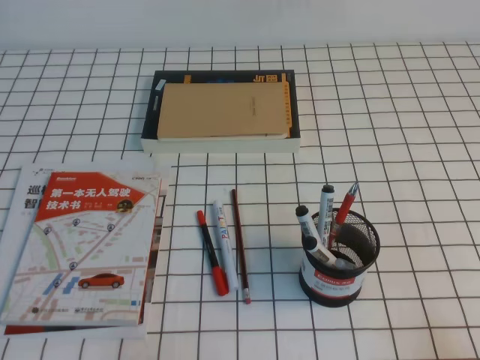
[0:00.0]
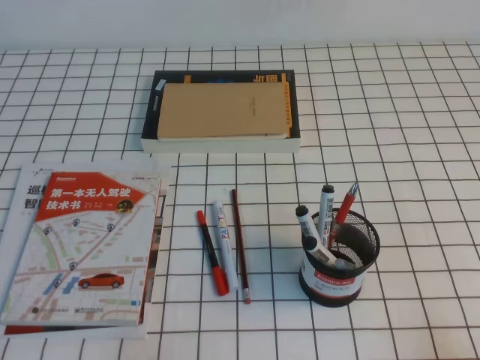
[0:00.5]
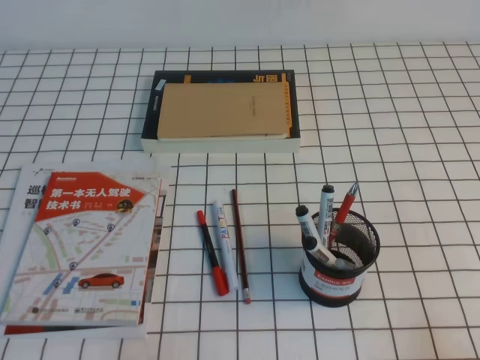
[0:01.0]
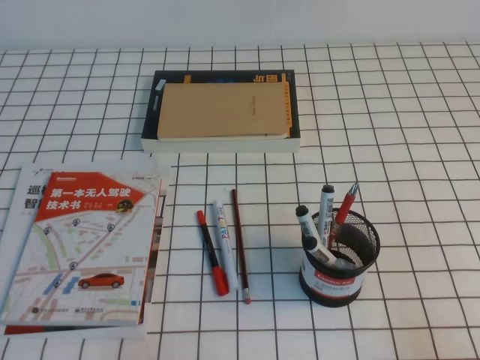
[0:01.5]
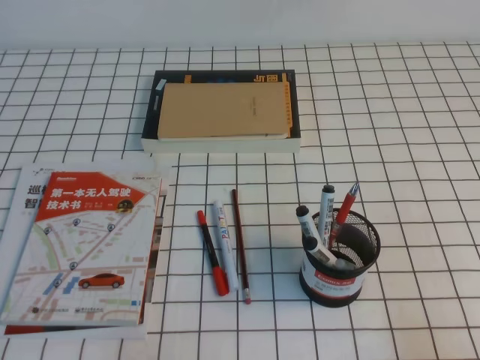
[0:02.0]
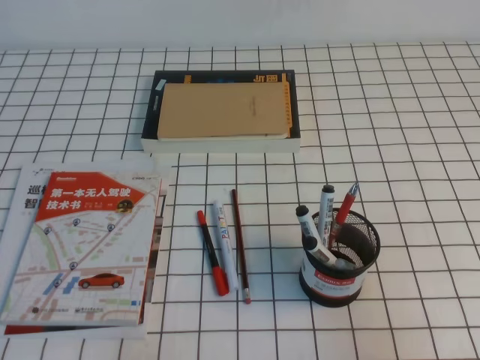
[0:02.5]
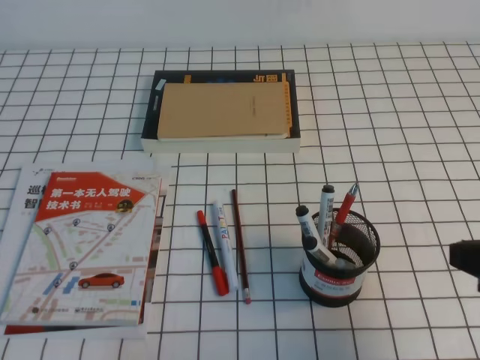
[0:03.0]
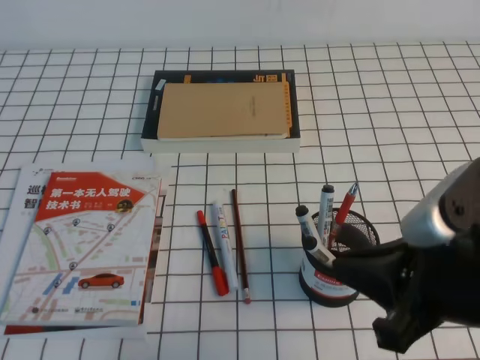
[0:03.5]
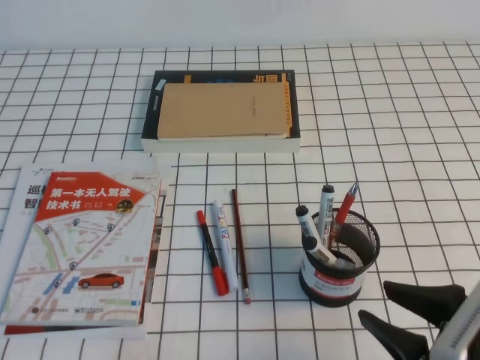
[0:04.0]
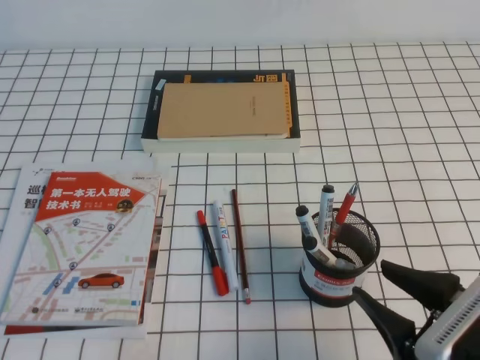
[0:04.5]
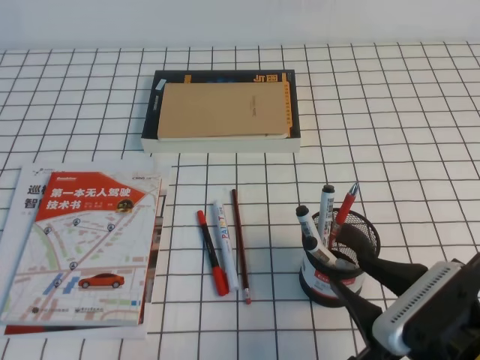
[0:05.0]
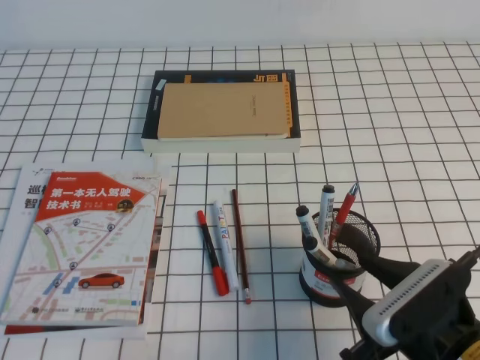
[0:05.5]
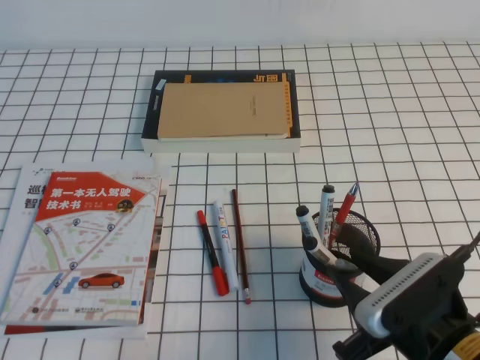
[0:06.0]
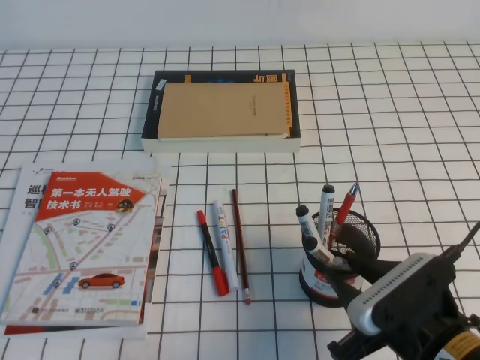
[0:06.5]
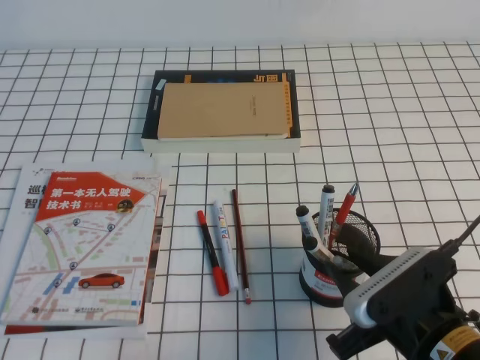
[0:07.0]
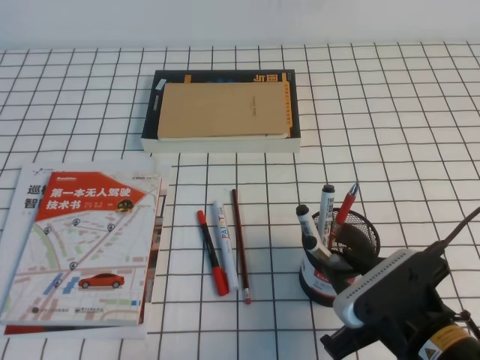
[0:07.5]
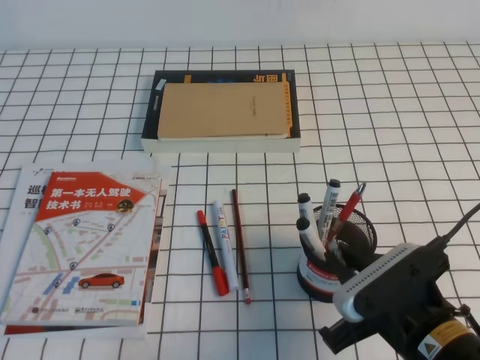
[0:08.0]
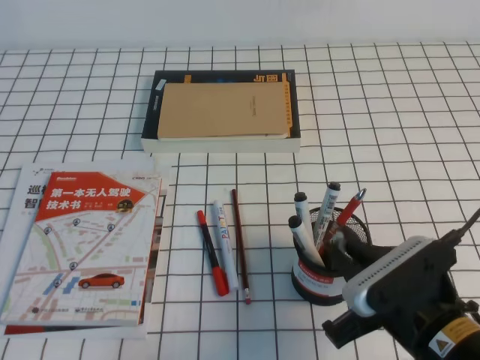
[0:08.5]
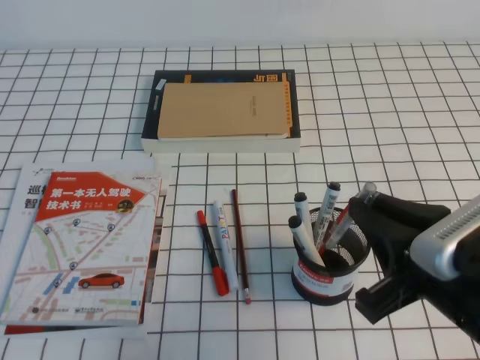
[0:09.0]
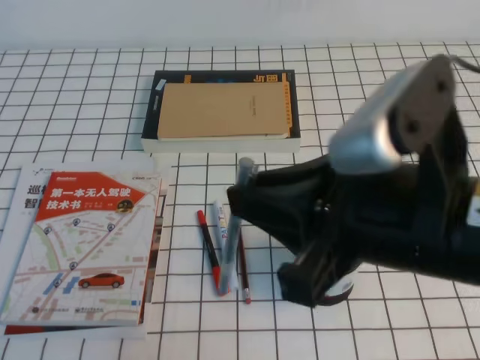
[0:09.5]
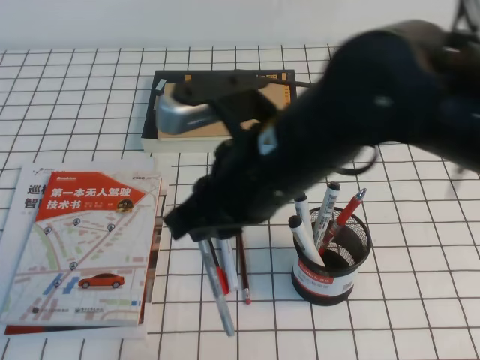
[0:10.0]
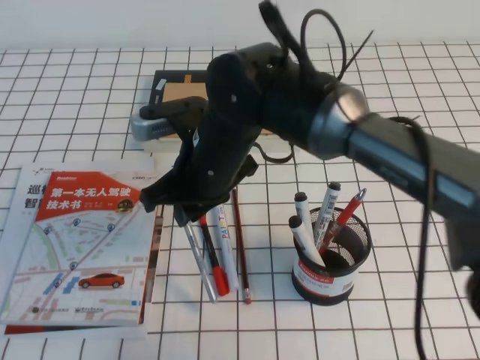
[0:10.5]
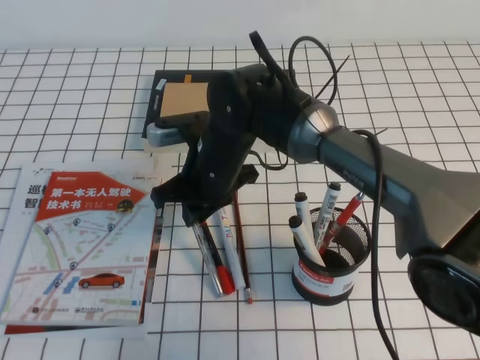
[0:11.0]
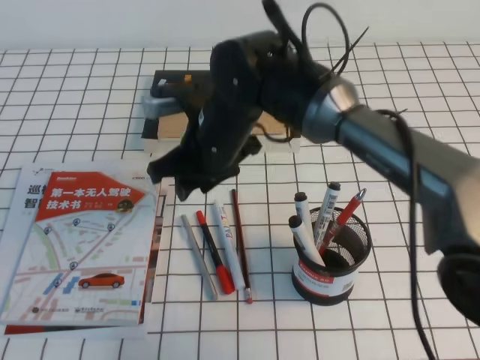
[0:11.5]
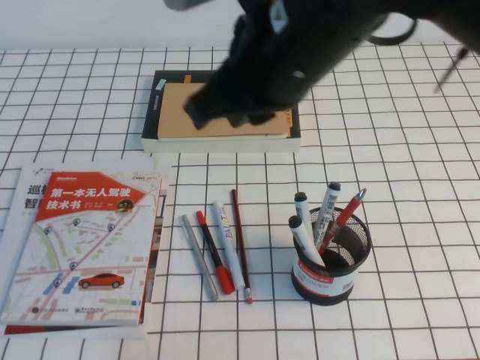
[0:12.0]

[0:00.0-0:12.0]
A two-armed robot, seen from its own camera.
0:02.0 to 0:04.0: The right gripper is displaced to the left and forward by some 10 cm, and opens its fingers.
0:04.0 to 0:06.0: The right gripper ends up roughly 5 cm from where it was.
0:06.0 to 0:08.0: The right gripper closes up.
0:08.0 to 0:10.0: The right gripper shifts approximately 20 cm upward and to the left.
0:10.0 to 0:12.0: The right gripper moves about 15 cm downward and comes back, and opens, then closes once more.

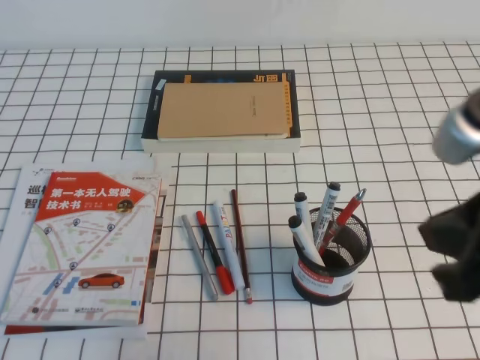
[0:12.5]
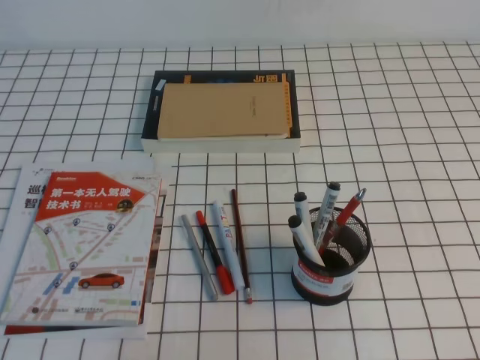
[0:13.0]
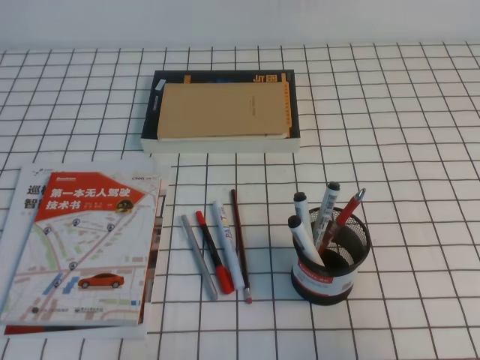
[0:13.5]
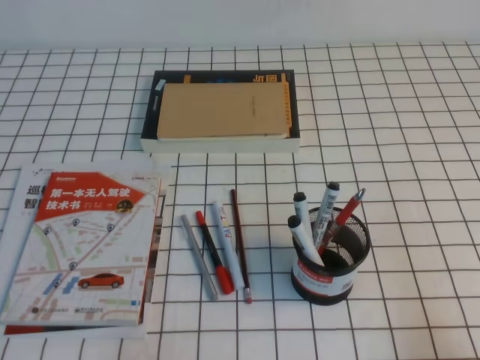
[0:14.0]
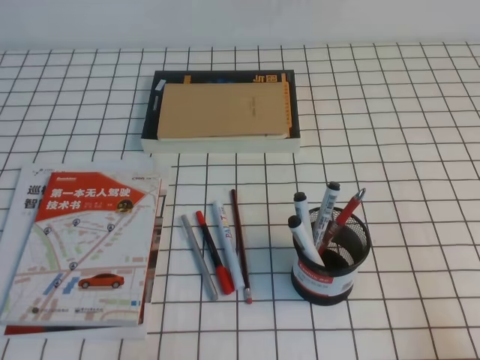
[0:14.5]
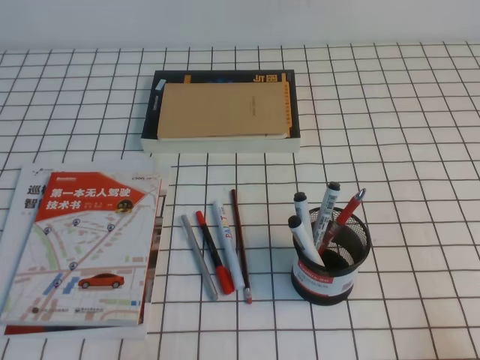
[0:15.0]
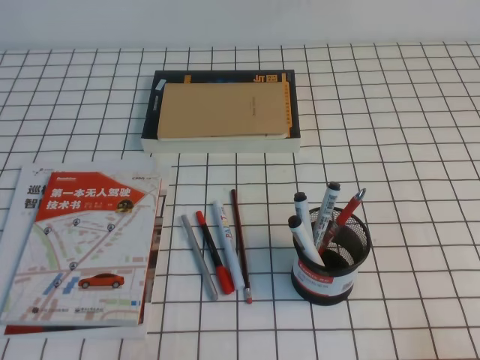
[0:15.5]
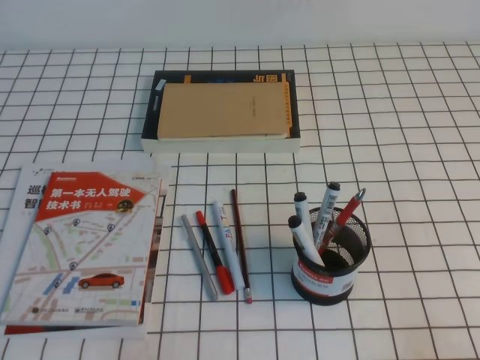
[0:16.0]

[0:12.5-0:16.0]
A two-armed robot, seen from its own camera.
Step, 0:12.5 to 0:16.0: Pick up the pen from the pen holder.
0:12.5 to 0:14.5: The right gripper moves downward, to the right and backward, some 25 cm.
